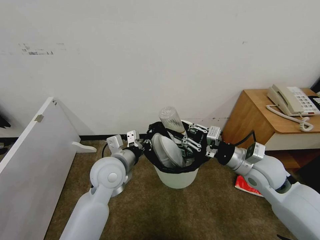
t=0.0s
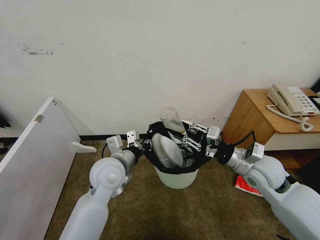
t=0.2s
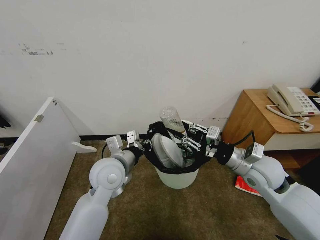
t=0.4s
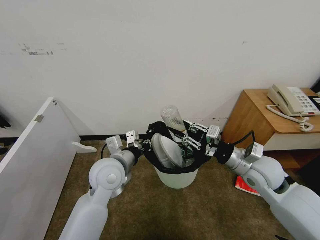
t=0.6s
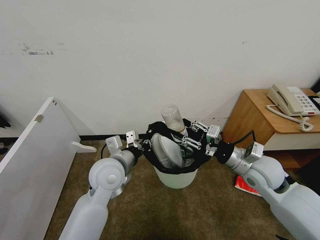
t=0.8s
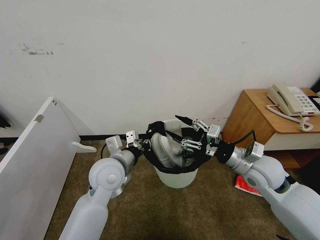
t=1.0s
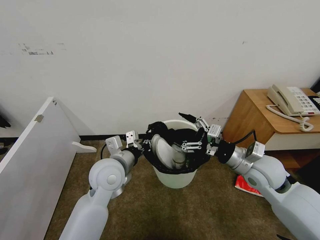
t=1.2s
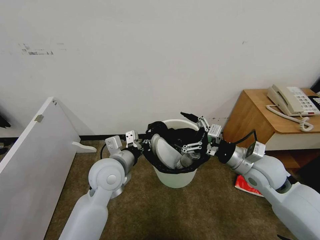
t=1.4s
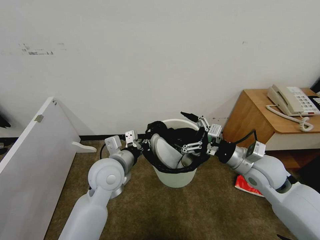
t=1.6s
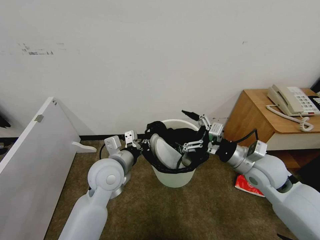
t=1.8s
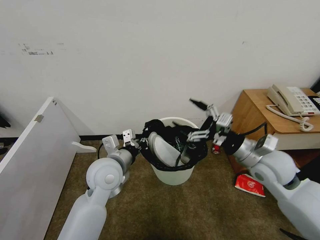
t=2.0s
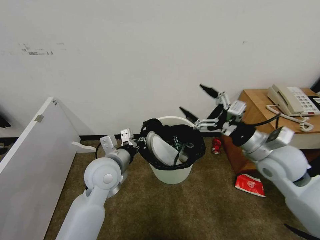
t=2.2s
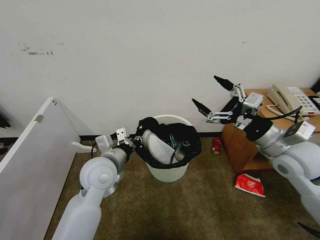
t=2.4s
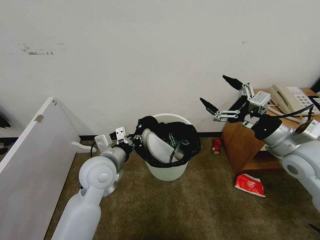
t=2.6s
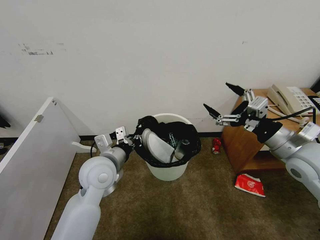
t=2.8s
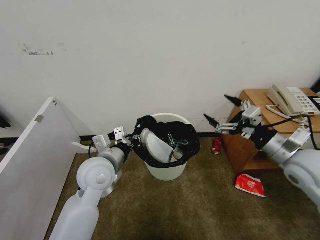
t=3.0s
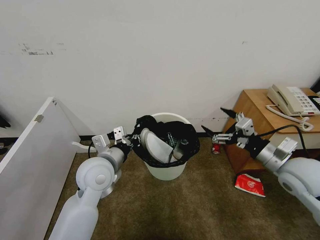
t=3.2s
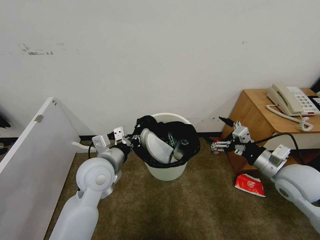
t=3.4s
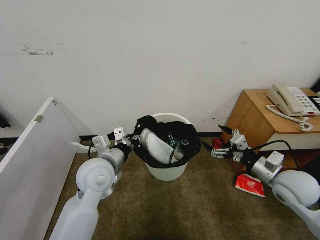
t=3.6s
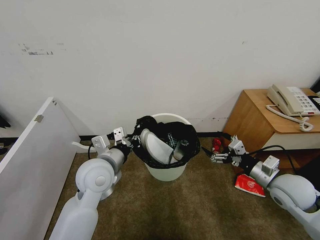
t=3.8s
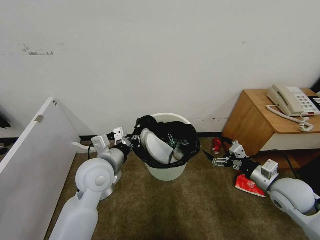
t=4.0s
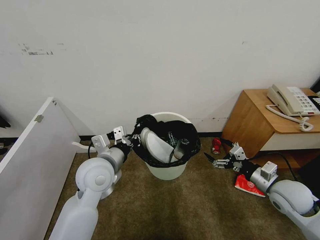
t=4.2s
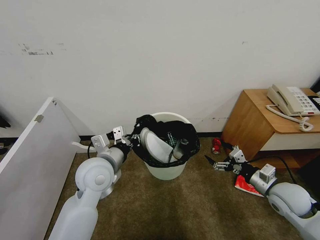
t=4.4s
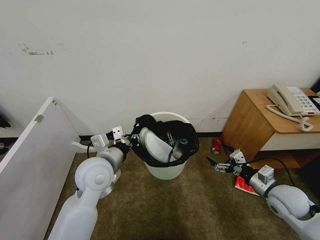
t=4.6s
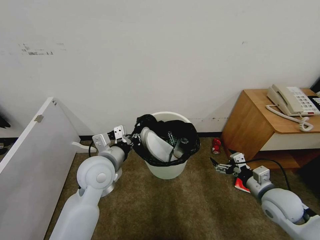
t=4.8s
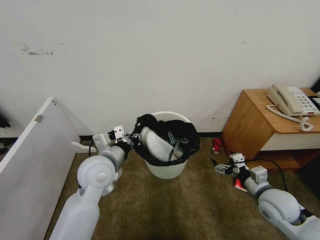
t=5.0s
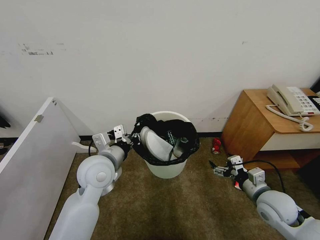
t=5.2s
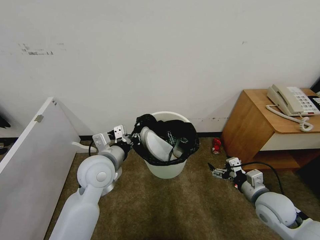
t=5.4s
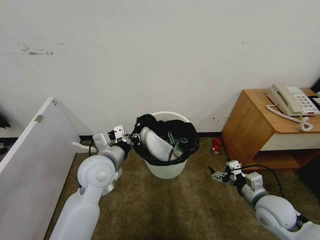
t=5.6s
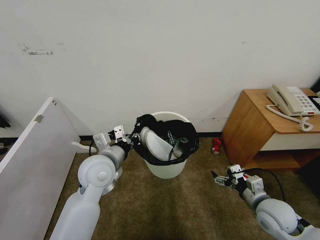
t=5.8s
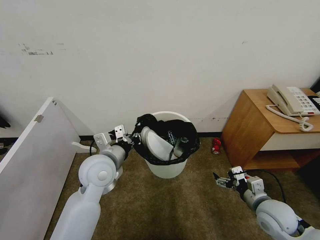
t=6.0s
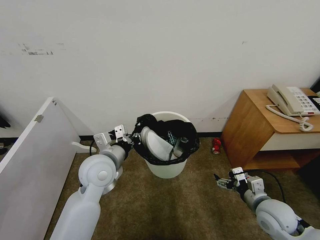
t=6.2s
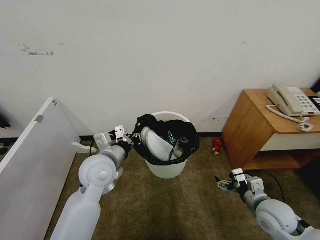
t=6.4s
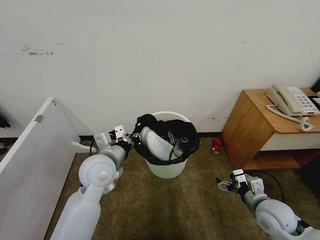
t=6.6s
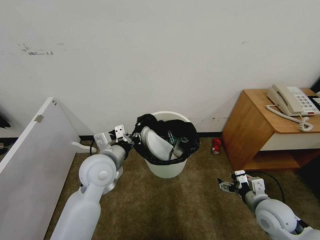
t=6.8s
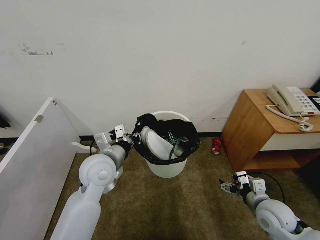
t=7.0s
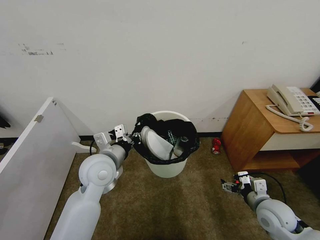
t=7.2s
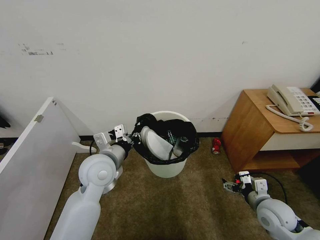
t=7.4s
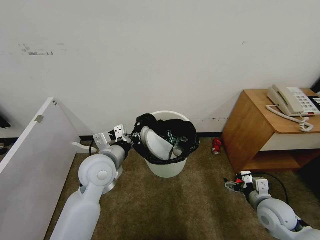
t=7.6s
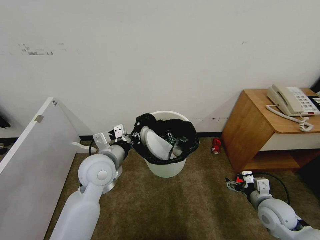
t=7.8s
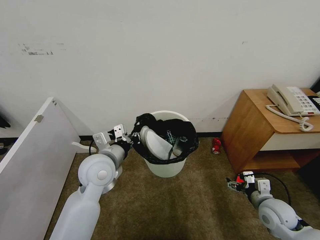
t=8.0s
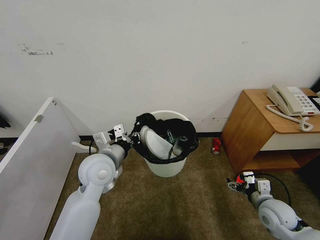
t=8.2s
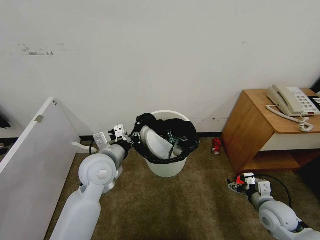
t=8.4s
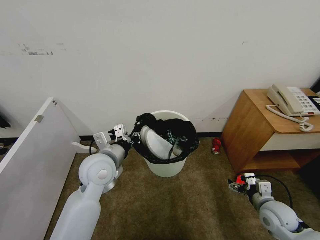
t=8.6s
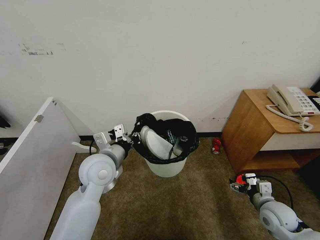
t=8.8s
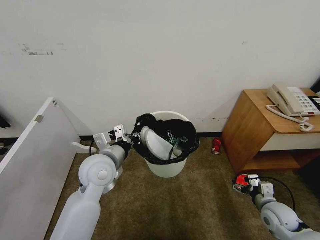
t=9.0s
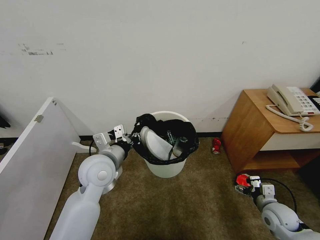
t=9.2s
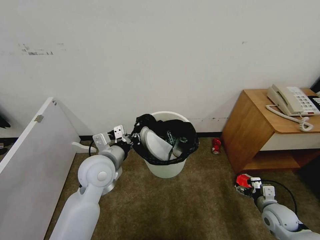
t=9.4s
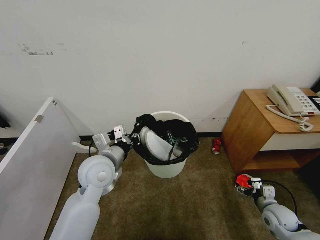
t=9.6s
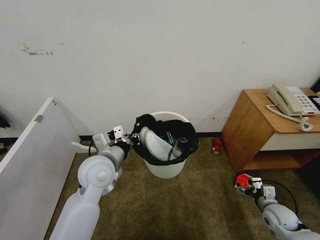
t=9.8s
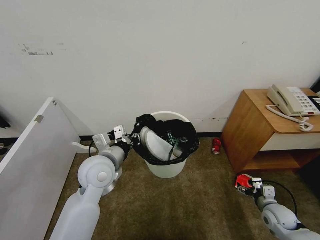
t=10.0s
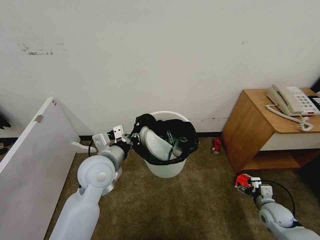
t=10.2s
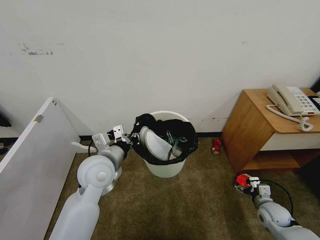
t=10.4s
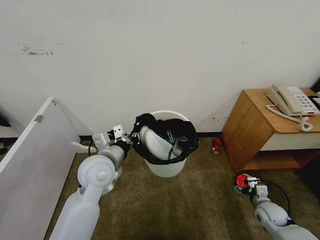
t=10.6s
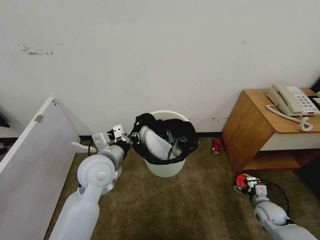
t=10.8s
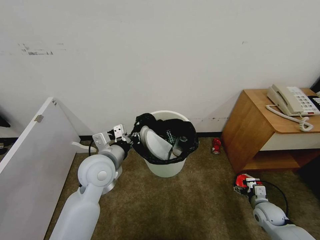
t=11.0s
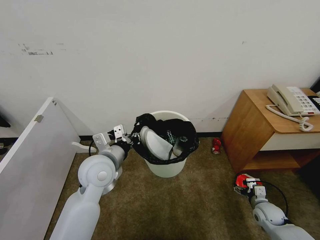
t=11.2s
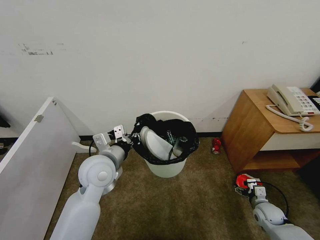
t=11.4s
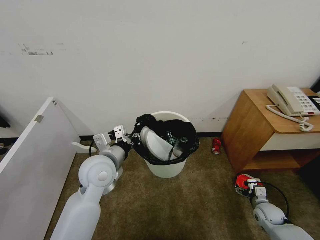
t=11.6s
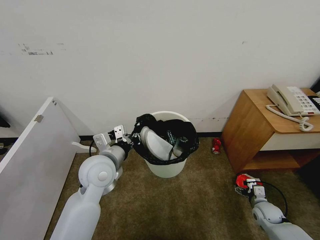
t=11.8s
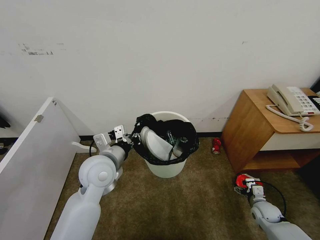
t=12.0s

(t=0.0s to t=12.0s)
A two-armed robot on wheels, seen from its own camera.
Task of the whole recording: Pick up the trash bin, then pick up the garbage from the floor and place it into the trash bin.
t=0.0s - t=1.6s: The right gripper opens up.
t=1.6s - t=3.0s: The right gripper moves to the right and upward, about 10 cm.
t=3.0s - t=4.4s: The right gripper goes approximately 15 cm downward.
t=4.4s - t=6.0s: The right gripper moves roughly 5 cm.
t=6.0s - t=7.6s: The grippers make only small movements.
t=7.6s - t=9.0s: The right gripper changes place by approximately 5 cm.
t=9.0s - t=10.4s: The right gripper heads downward, covering roughly 5 cm.
t=10.4s - t=12.0s: The grippers move only a little.

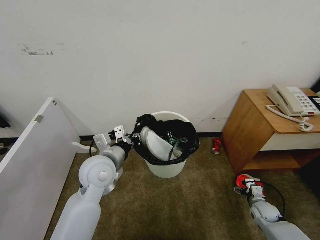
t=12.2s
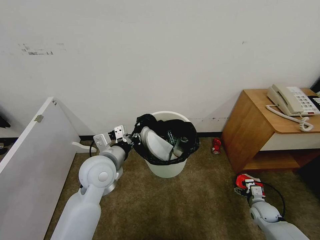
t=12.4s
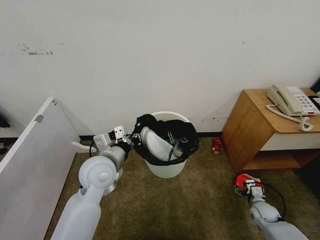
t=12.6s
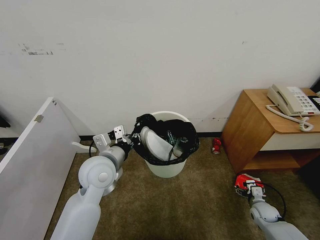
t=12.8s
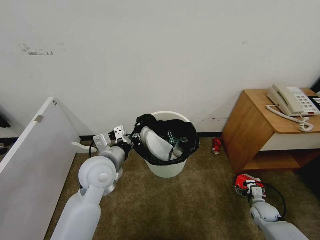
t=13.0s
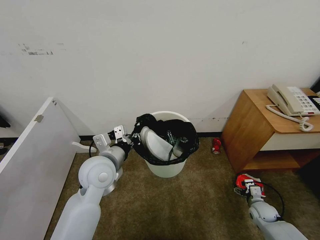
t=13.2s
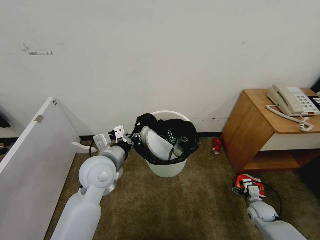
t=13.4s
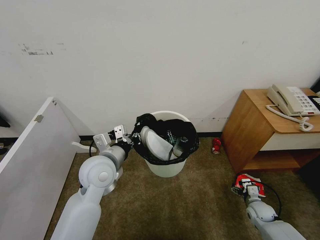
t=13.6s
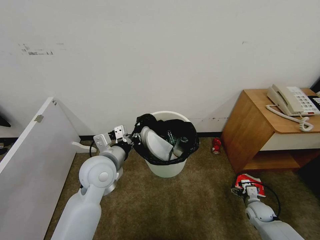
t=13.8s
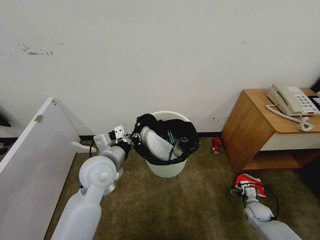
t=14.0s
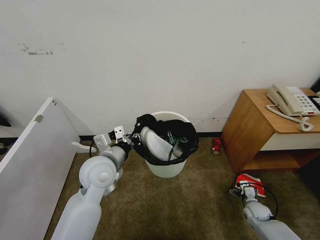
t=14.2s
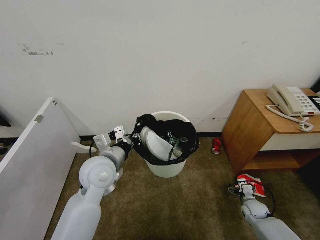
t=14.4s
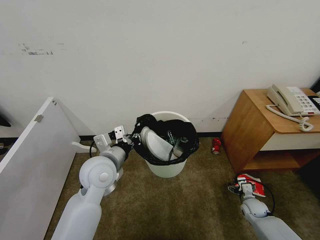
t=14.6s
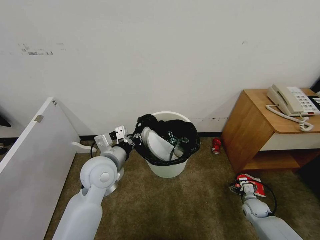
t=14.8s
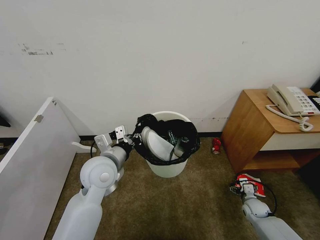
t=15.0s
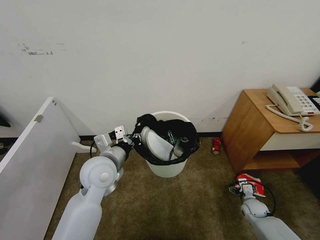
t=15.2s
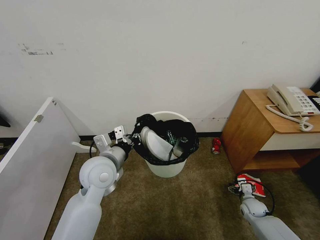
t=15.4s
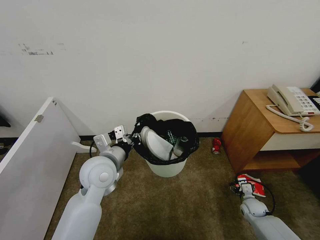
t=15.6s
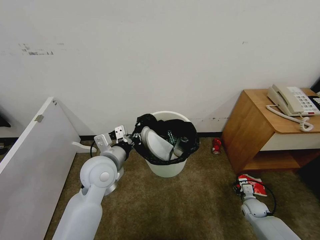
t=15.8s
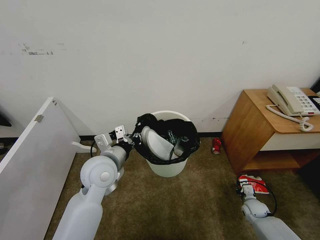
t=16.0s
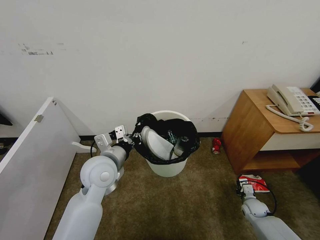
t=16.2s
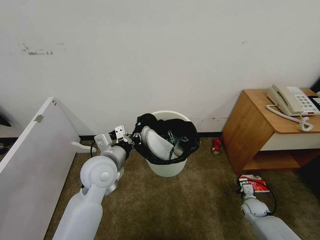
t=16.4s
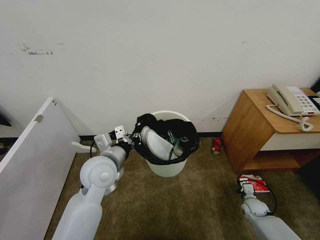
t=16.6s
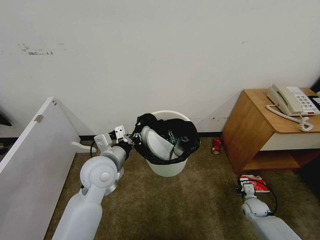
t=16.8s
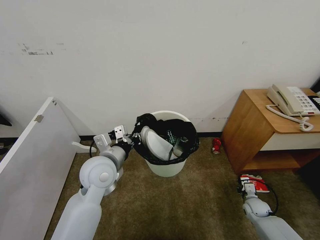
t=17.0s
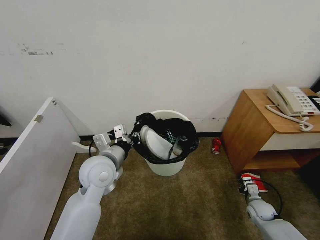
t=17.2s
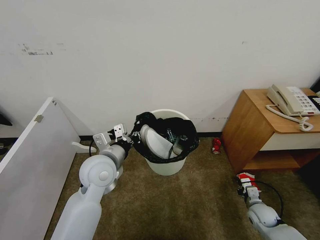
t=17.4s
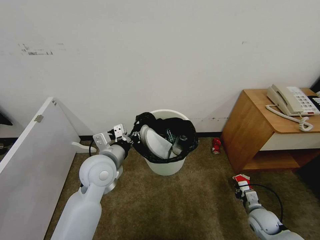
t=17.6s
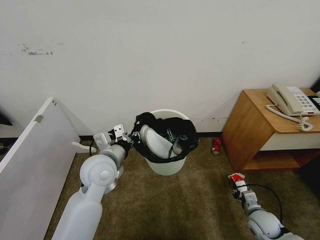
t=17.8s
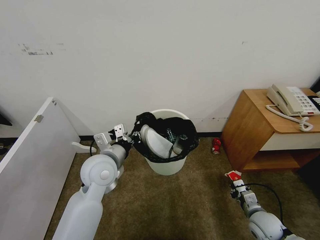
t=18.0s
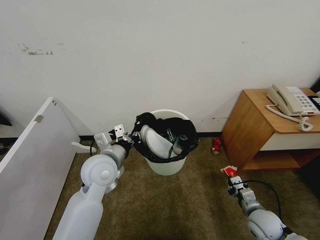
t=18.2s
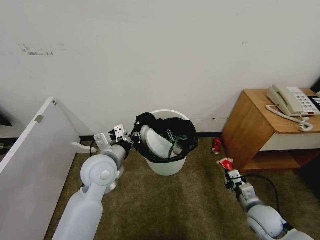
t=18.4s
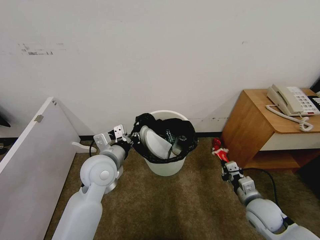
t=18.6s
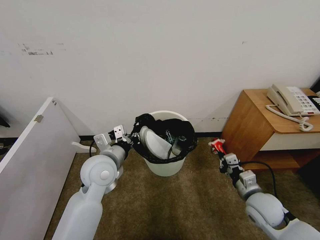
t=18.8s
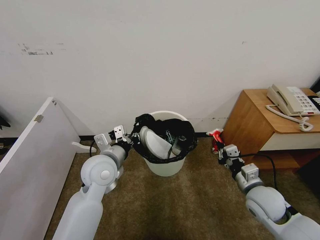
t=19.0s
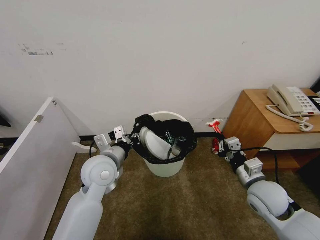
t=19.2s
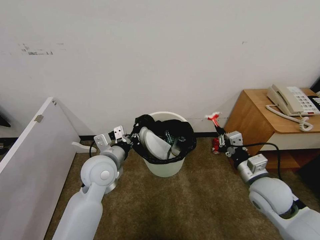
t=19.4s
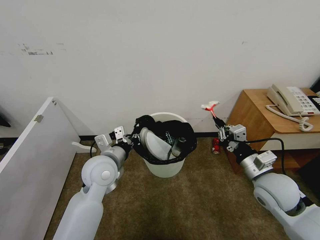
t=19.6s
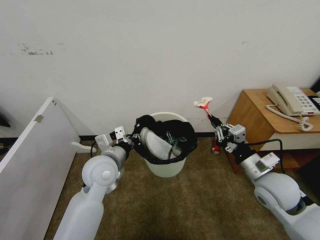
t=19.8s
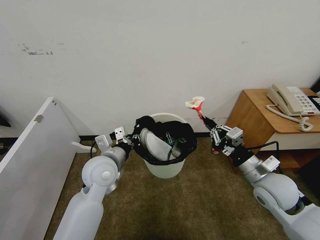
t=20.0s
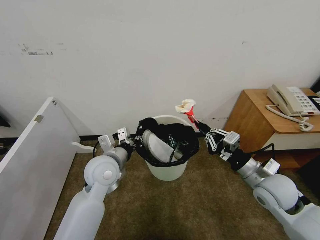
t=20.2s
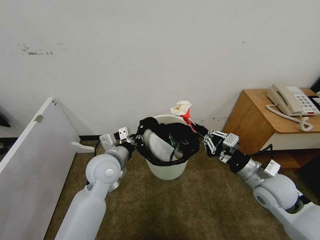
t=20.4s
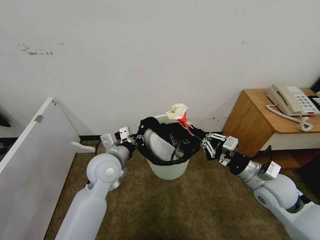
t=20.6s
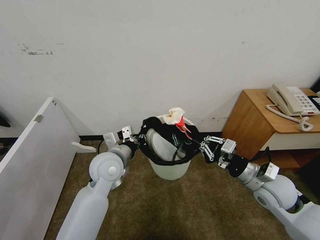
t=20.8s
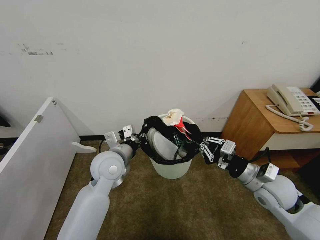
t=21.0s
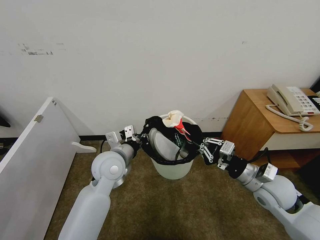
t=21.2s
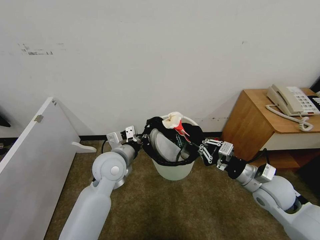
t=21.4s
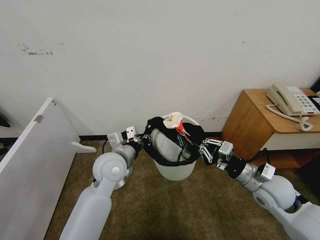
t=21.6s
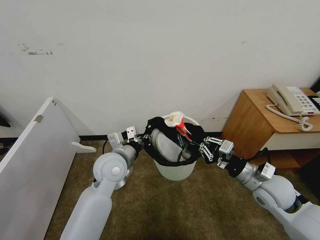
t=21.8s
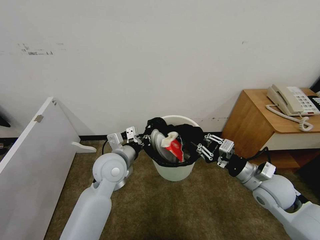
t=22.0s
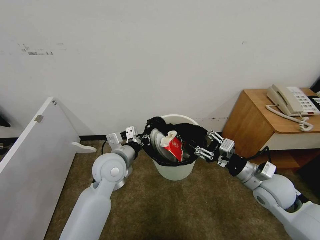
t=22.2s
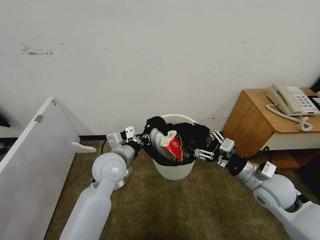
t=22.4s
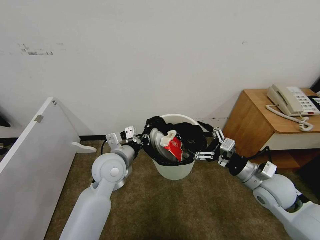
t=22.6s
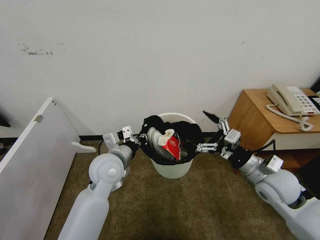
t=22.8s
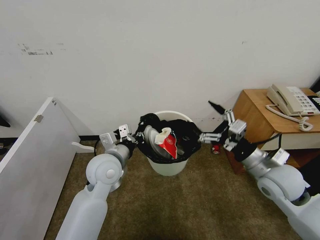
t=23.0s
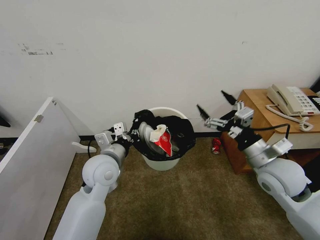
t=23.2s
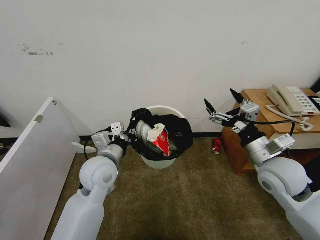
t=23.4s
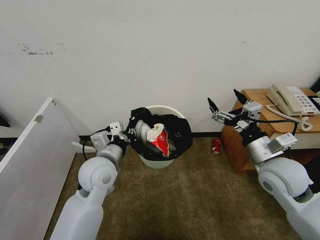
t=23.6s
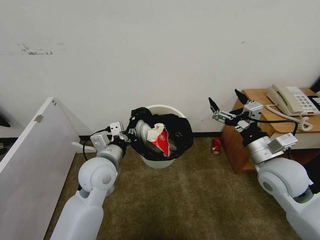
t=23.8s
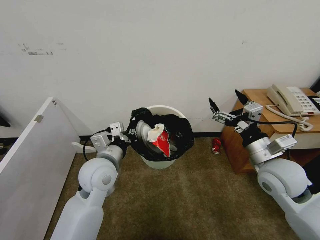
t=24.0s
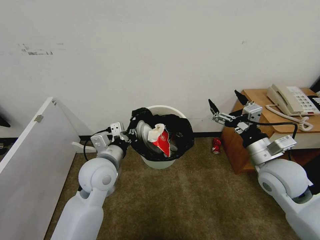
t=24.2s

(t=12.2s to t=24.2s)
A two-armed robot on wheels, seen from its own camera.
Task of the whole recording: Pick up the trash bin, then pick up the garbage from the floor and place it into the trash bin.
t=12.2s - t=15.2s: The grippers stay close to where they were, moving slightly.
t=15.2s - t=16.6s: The right gripper closes up.
t=16.6s - t=18.2s: The right gripper moves upward, backward and to the left, roughly 15 cm.
t=18.2s - t=19.8s: The right gripper is displaced upward by about 20 cm.
t=21.2s - t=22.6s: The right gripper opens.
t=22.6s - t=24.2s: The right gripper moves upward, roughly 5 cm.
